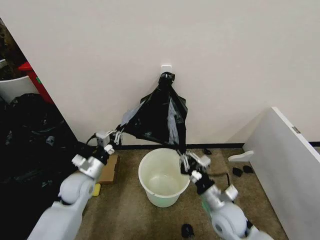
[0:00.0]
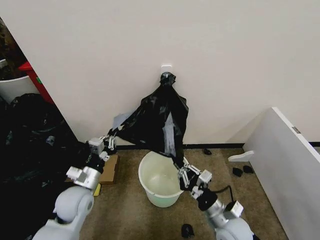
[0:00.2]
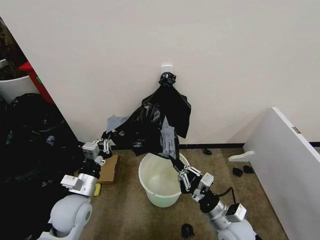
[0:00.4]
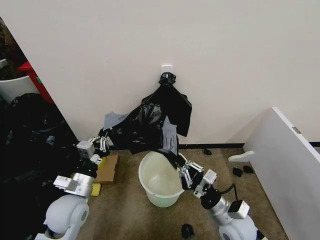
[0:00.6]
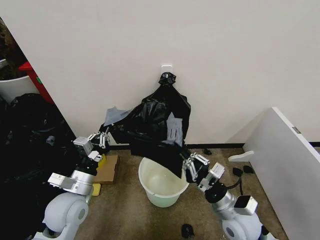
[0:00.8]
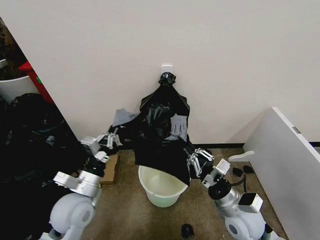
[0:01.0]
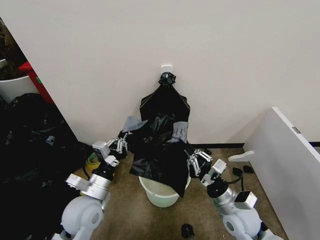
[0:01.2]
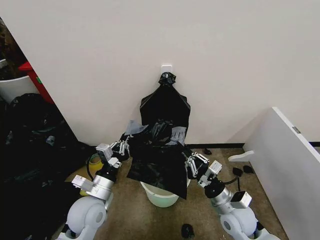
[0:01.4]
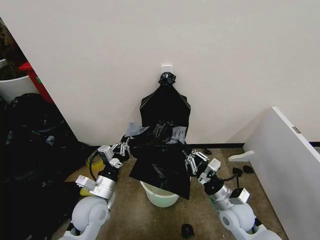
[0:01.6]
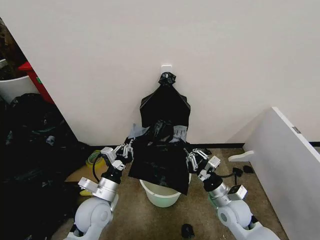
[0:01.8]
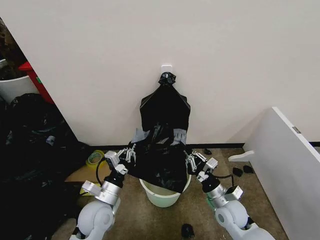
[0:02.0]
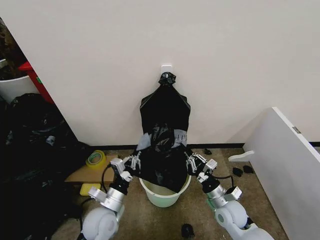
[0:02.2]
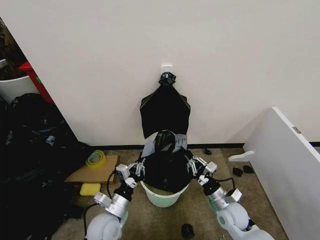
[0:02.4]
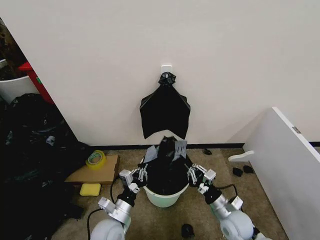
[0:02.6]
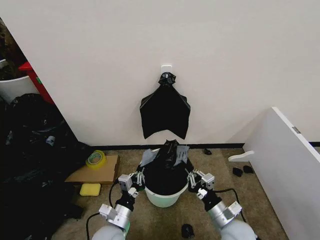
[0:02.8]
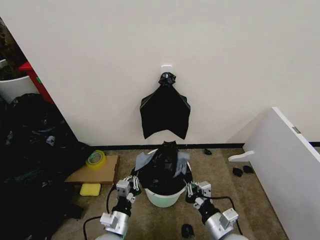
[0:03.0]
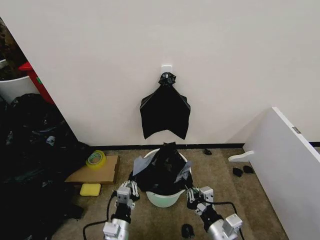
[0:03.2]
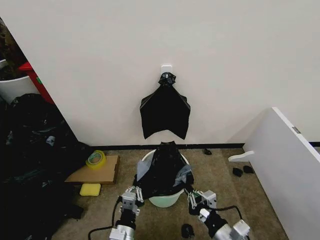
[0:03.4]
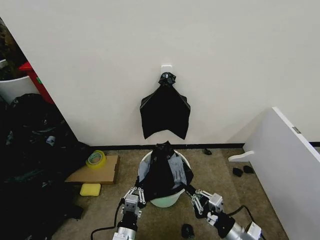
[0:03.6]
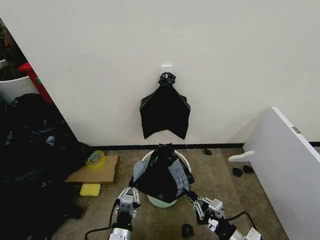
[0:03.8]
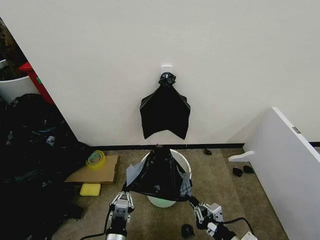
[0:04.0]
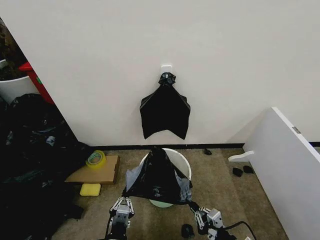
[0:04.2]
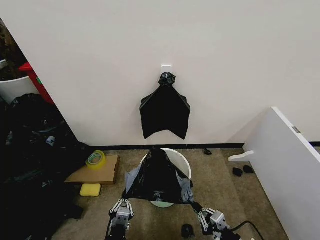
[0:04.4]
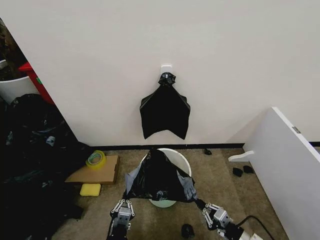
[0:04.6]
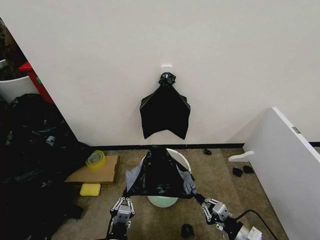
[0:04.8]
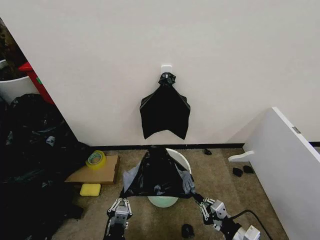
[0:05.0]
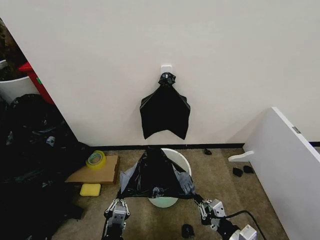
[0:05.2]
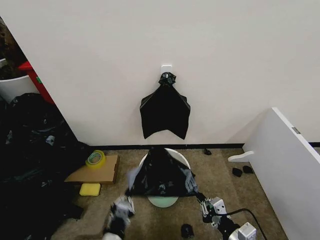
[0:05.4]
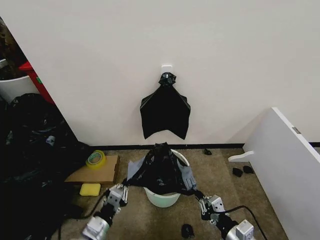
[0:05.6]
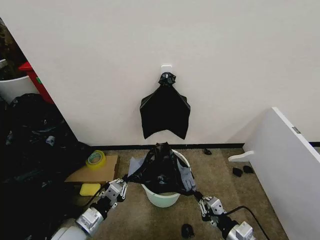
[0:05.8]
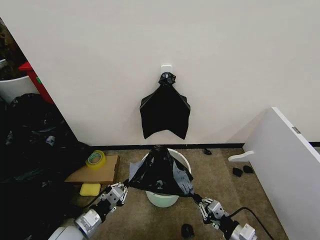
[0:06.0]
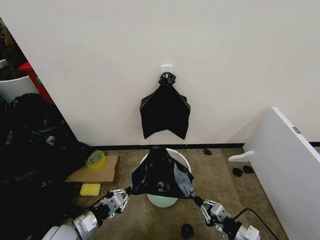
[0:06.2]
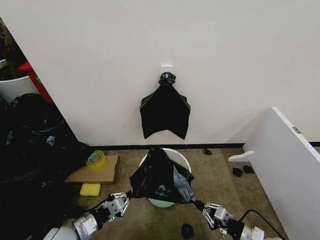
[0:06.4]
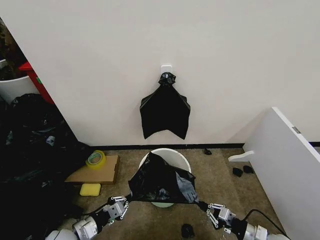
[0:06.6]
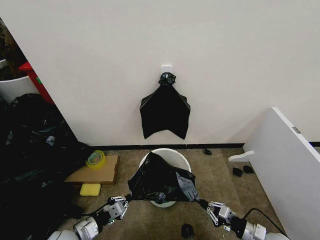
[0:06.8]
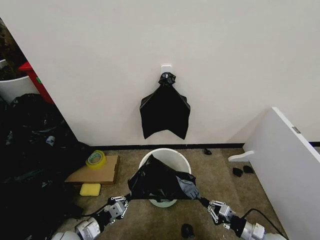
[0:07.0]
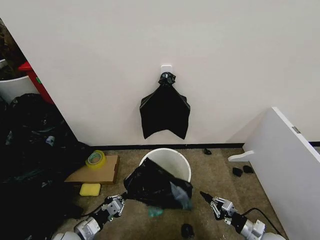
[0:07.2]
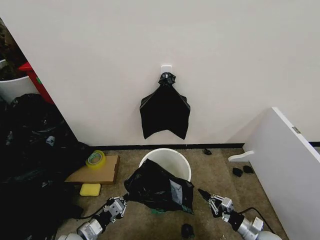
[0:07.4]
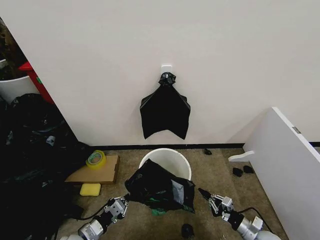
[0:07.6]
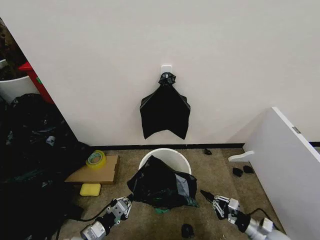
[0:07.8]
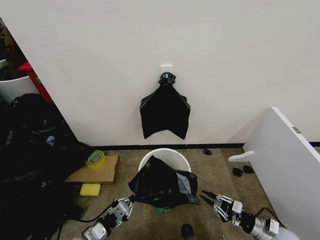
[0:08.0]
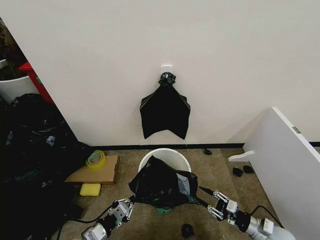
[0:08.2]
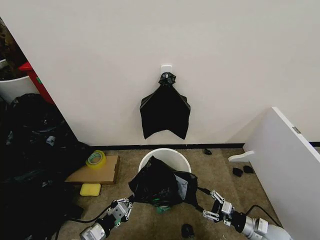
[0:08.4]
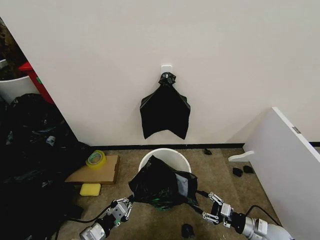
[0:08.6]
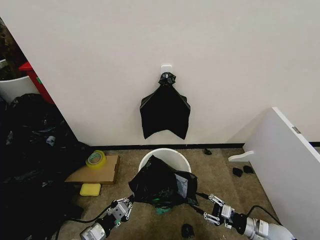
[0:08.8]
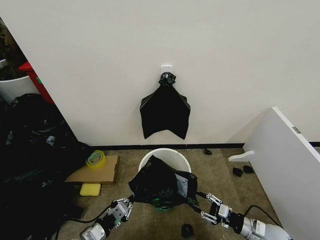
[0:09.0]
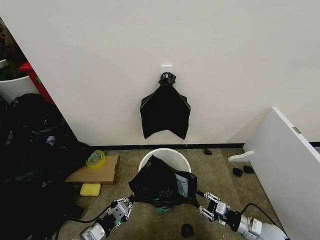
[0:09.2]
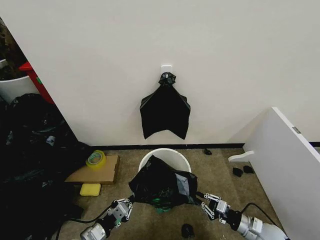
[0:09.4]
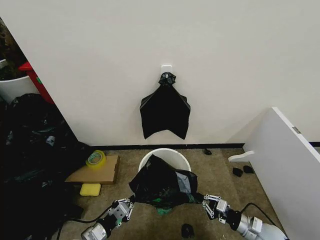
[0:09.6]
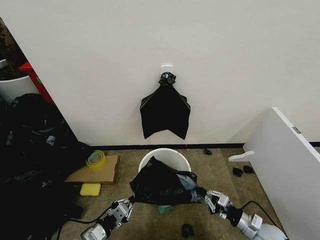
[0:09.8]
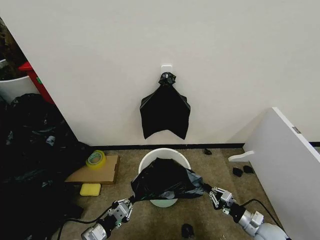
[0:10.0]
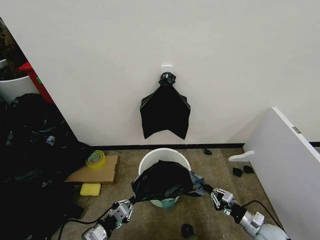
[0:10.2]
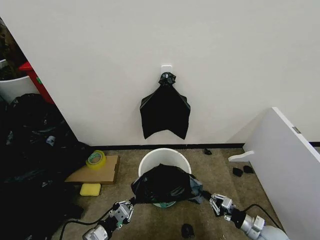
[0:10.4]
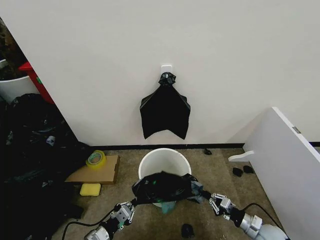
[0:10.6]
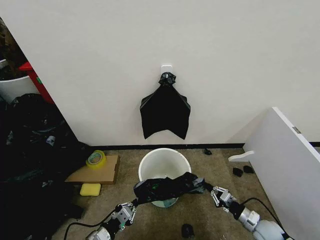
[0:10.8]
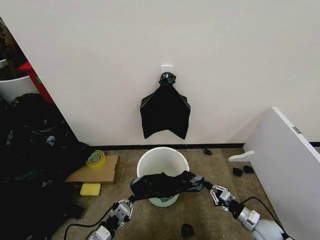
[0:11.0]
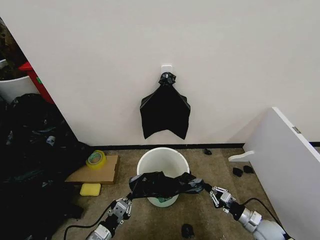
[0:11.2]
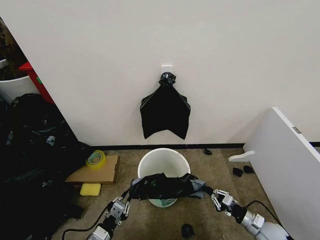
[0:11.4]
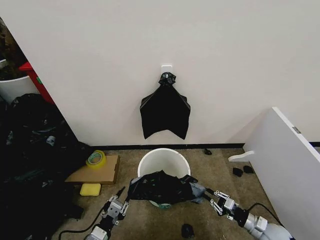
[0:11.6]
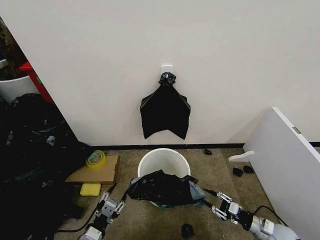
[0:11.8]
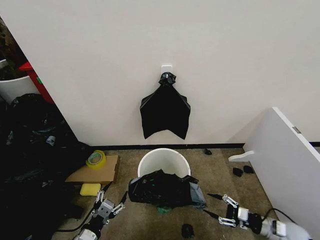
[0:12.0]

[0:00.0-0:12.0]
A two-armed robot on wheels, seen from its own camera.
Task of the whole recording: Place the garbage bag over the trash bin.
0.0 to 1.6 s: The left gripper is displaced backward and to the right by approximately 10 cm.
1.6 to 3.0 s: The right gripper goes about 10 cm backward, while the left gripper shifts approximately 15 cm downward, backward and to the right.
3.0 to 4.4 s: The right gripper shifts roughly 10 cm to the right, while the left gripper moves backward, some 10 cm.
4.4 to 6.0 s: The right gripper goes upward and returns, roughly 5 cm each way; the left gripper moves to the left, forward and upward, roughly 20 cm.
6.0 to 7.6 s: The right gripper shifts approximately 15 cm downward, to the right and forward. Meanwhile the left gripper moves downward, some 5 cm.
7.6 to 9.0 s: The right gripper moves upward, roughly 5 cm, and opens.
9.0 to 10.4 s: The right gripper closes up.
10.4 to 12.0 s: The right gripper heads to the right, covering approximately 5 cm, and opens up. The left gripper opens its fingers.

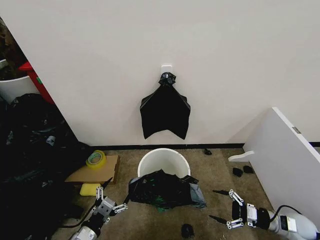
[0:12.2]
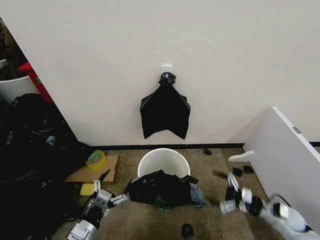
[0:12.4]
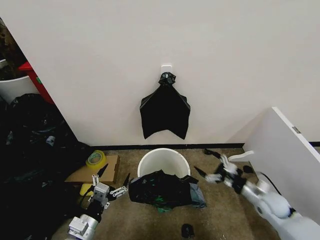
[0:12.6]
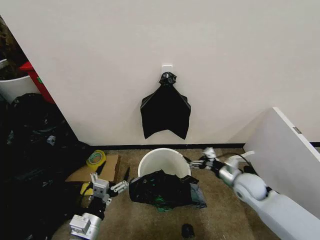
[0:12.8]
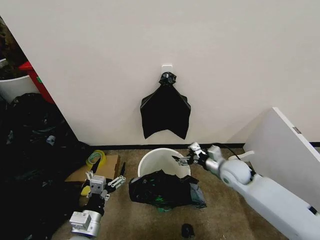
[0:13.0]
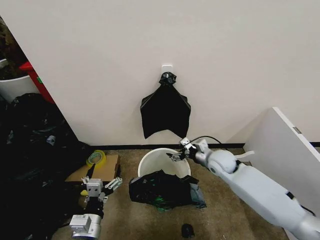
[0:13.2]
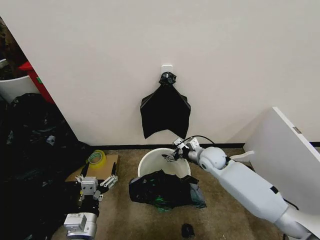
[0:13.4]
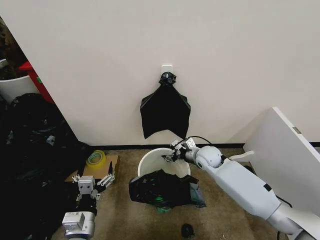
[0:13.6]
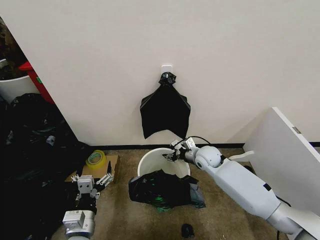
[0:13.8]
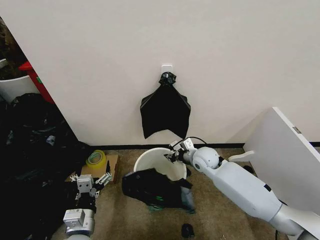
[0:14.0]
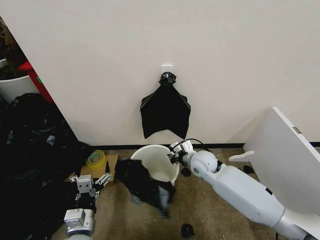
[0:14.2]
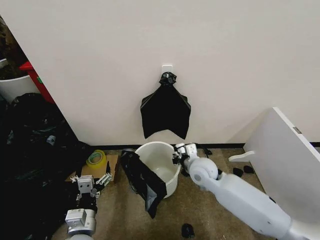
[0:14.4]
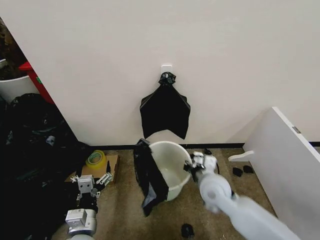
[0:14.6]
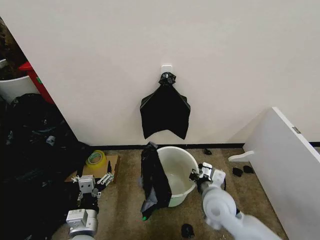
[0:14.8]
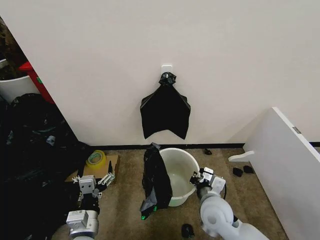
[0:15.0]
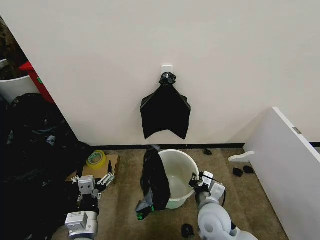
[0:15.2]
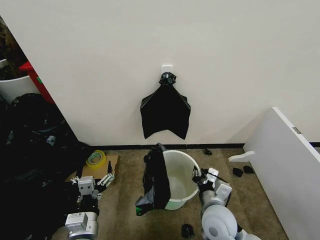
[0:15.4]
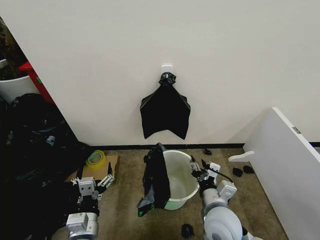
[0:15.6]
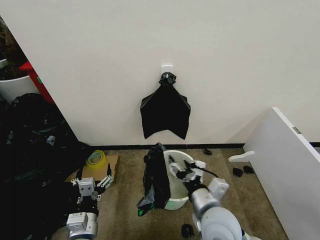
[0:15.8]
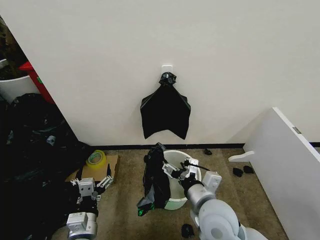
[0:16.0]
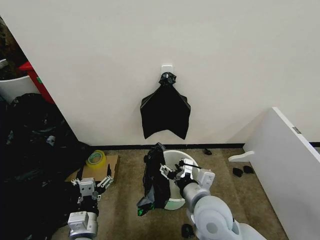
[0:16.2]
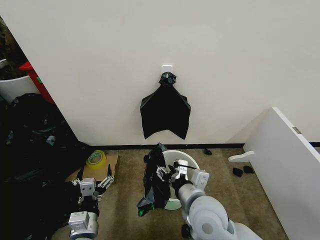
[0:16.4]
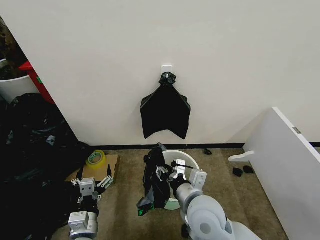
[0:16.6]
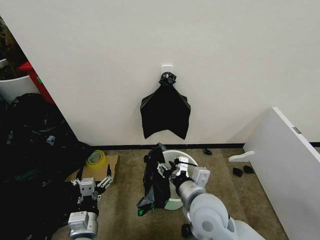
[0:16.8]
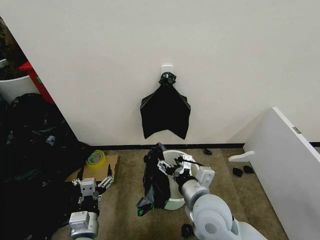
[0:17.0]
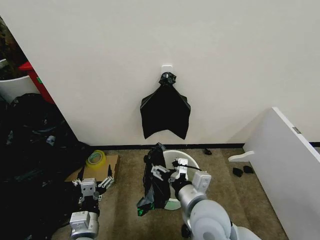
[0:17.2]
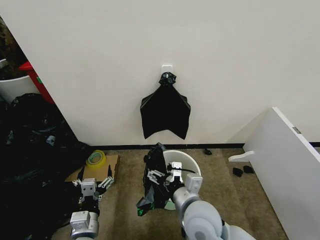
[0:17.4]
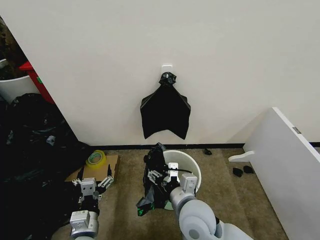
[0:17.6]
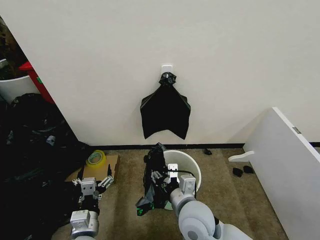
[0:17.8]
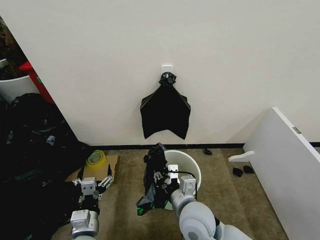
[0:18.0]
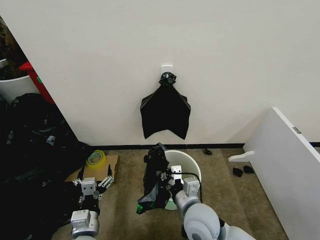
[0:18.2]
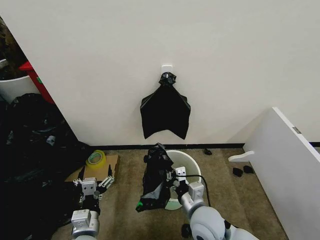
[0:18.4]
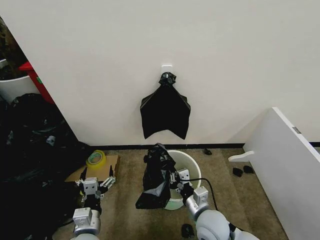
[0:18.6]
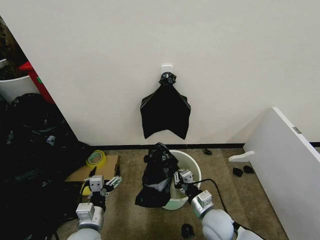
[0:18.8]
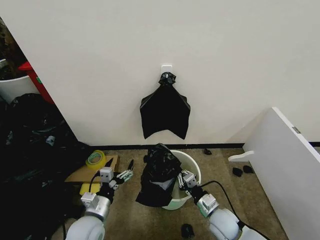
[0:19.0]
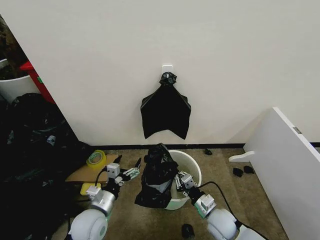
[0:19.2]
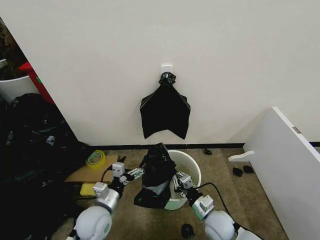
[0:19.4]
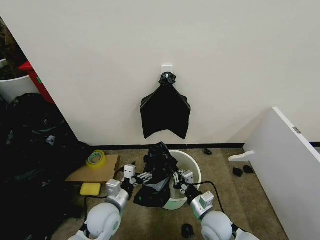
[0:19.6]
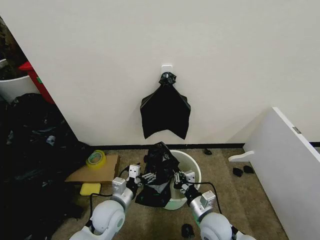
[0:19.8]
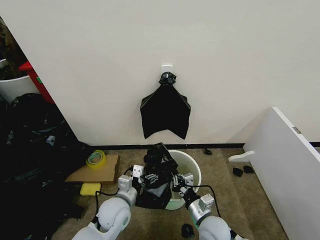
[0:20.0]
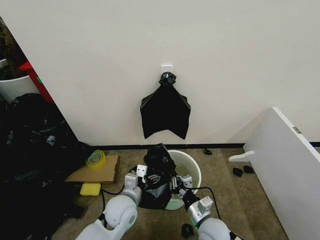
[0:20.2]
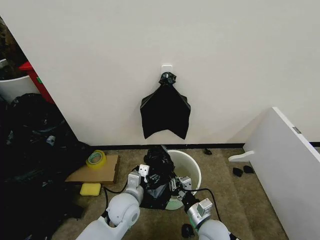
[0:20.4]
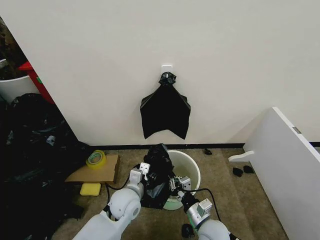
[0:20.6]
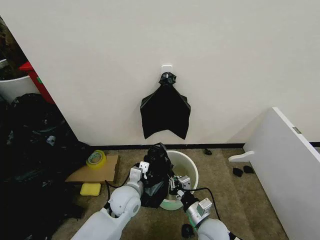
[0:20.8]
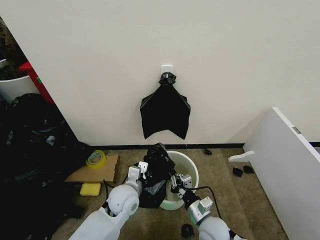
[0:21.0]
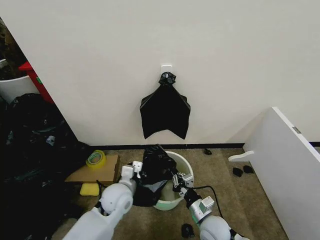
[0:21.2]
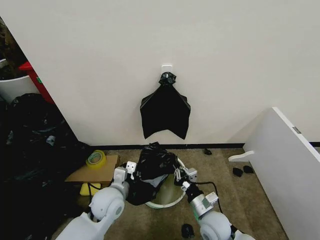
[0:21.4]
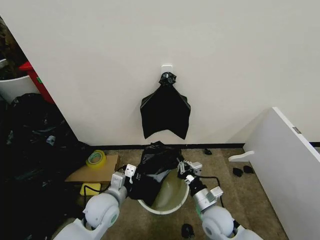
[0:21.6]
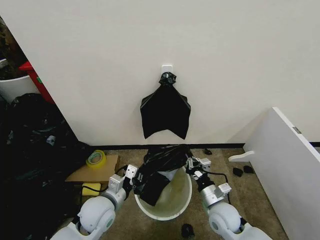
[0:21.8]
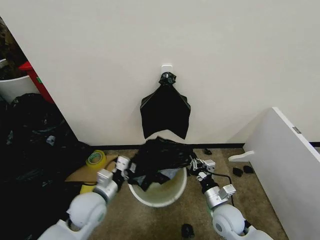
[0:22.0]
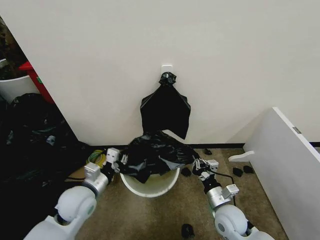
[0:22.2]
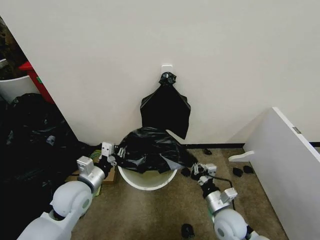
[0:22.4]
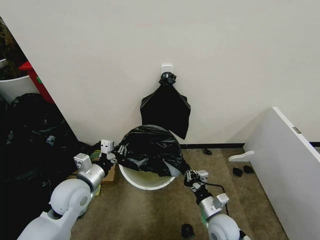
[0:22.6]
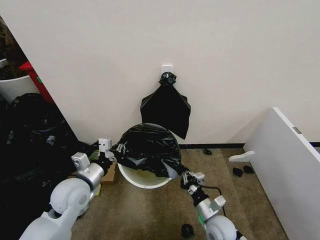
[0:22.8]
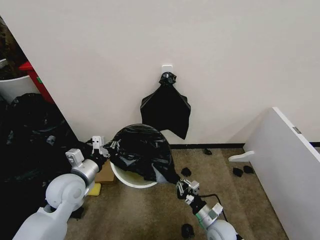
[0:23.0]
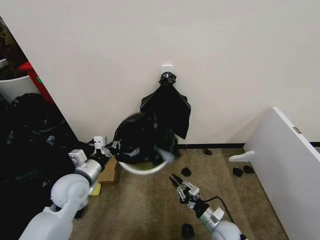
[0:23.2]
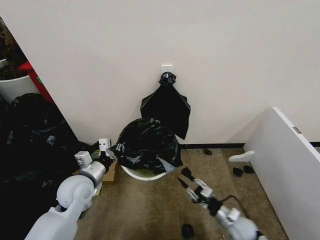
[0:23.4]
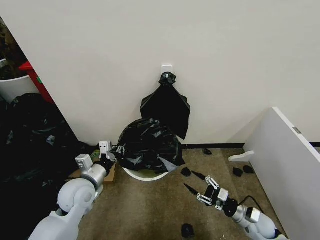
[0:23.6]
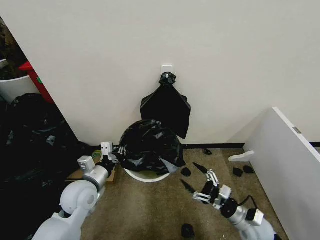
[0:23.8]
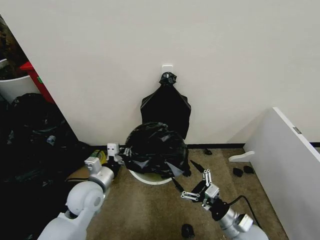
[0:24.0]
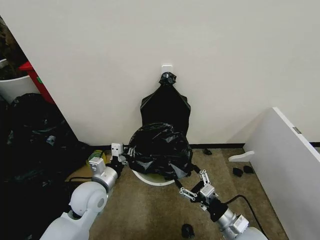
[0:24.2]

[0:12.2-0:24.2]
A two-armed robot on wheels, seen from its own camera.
Task of the whole recording: Place the garbage bag over the trash bin.
12.2 to 13.8 s: The right gripper goes roughly 35 cm to the left and forward. Meanwhile the left gripper heads upward, covering some 5 cm.
13.8 to 15.2 s: The right gripper heads backward, covering roughly 20 cm, and closes up.
15.2 to 16.6 s: The right gripper goes some 10 cm upward, and opens.
16.6 to 18.2 s: The right gripper opens, then closes again.
18.2 to 19.8 s: The left gripper goes some 10 cm forward; the right gripper moves downward and to the right, roughly 15 cm.
19.8 to 21.2 s: The left gripper shifts by about 5 cm, and closes up.
21.2 to 22.6 s: The left gripper goes about 15 cm to the left and upward.
22.6 to 24.2 s: The right gripper is displaced upward and backward by some 10 cm, travels to the right and back again, some 15 cm each way, and opens its fingers.
